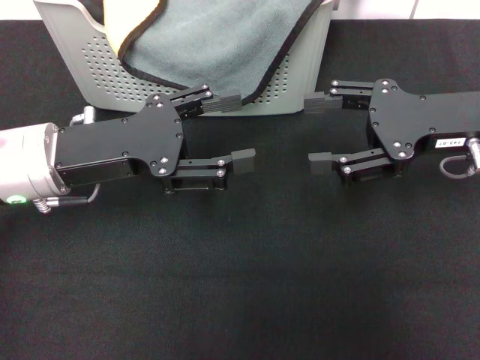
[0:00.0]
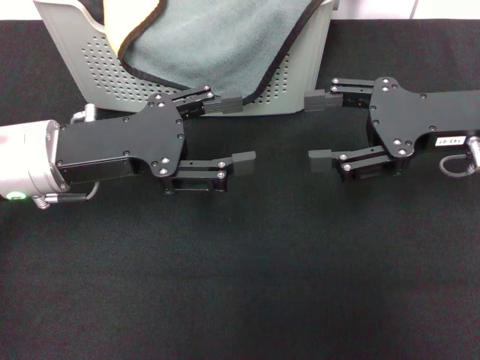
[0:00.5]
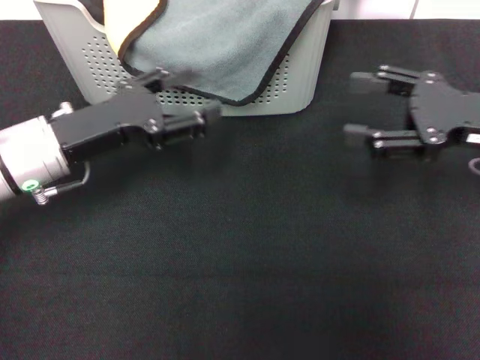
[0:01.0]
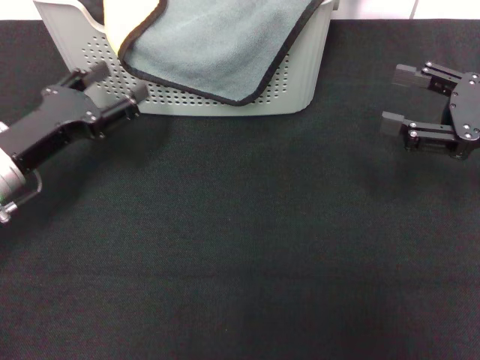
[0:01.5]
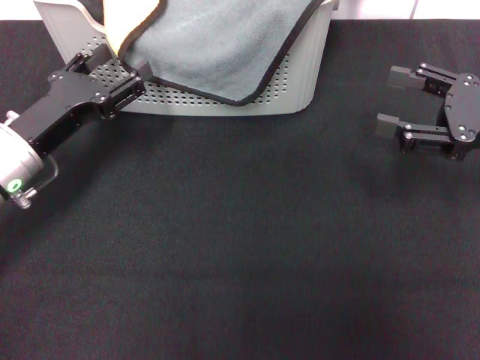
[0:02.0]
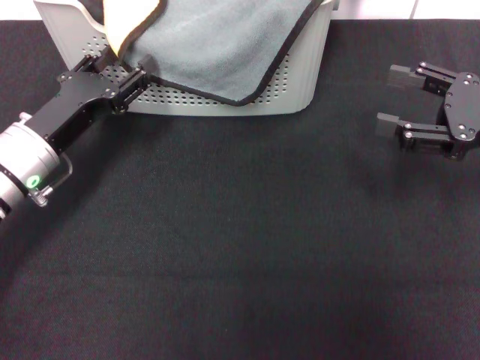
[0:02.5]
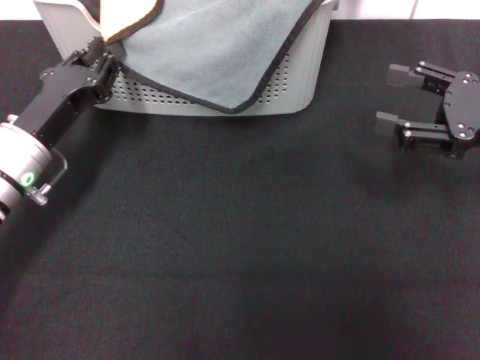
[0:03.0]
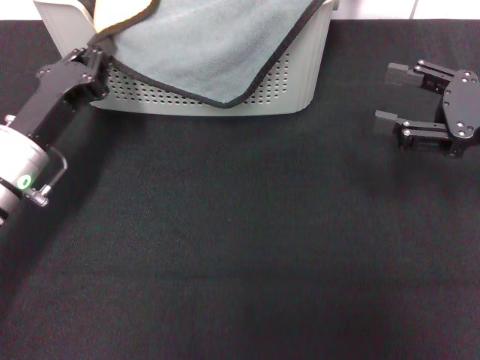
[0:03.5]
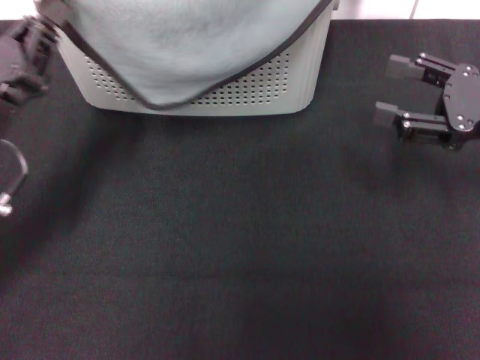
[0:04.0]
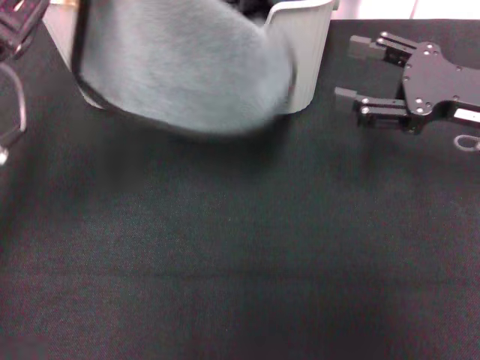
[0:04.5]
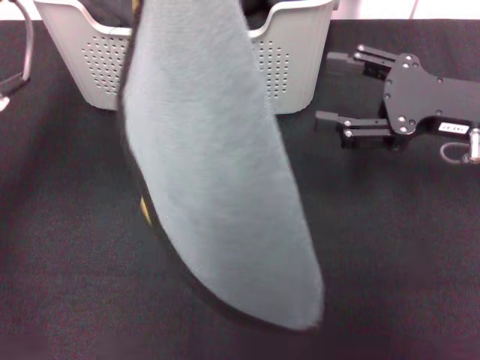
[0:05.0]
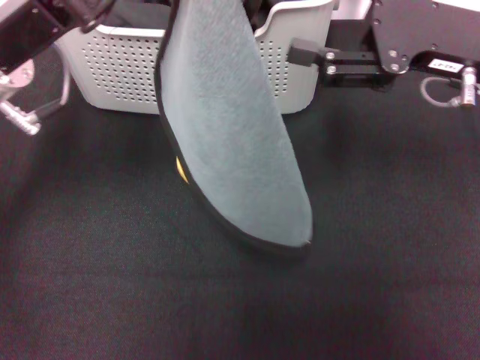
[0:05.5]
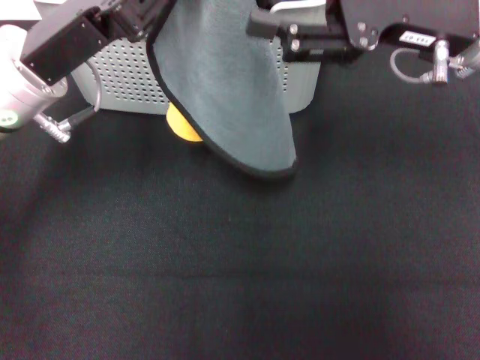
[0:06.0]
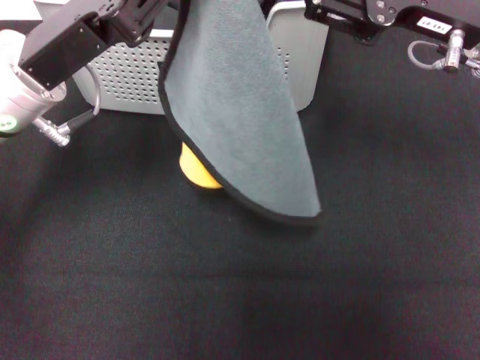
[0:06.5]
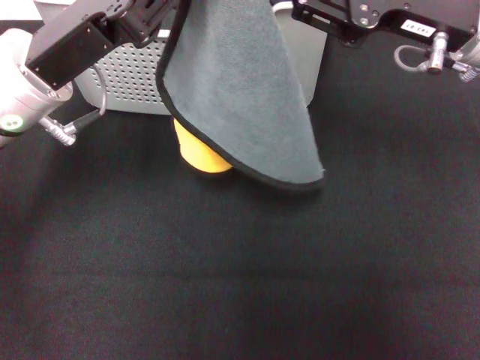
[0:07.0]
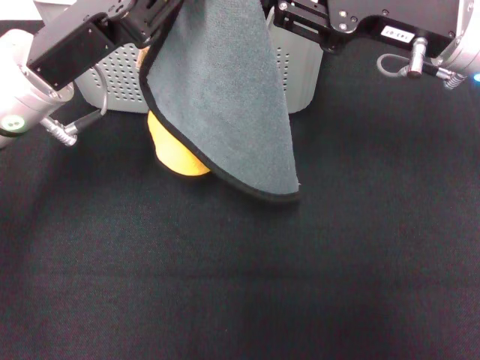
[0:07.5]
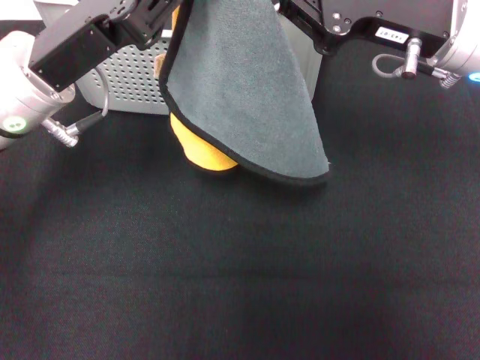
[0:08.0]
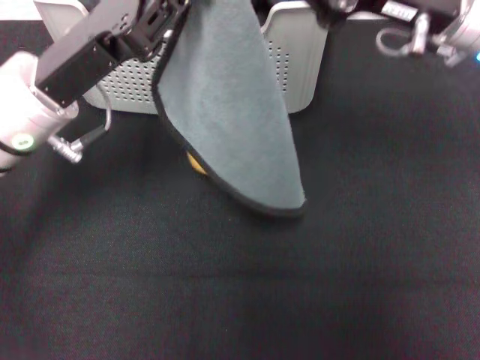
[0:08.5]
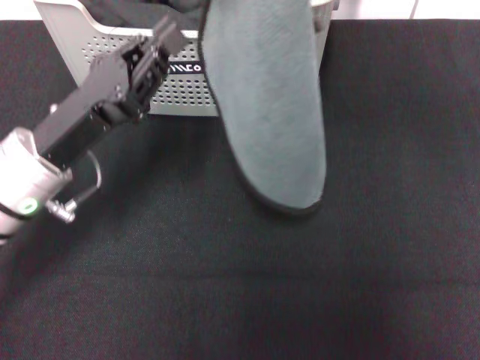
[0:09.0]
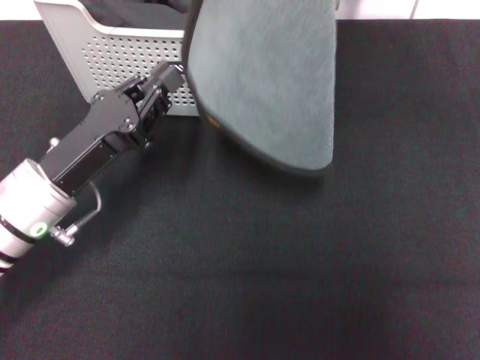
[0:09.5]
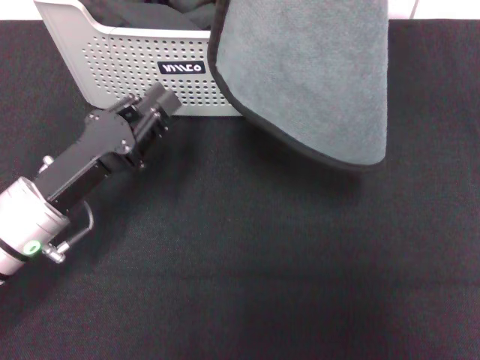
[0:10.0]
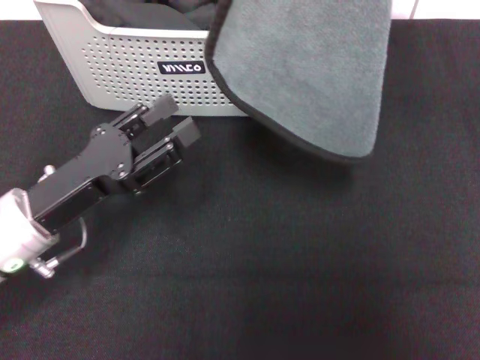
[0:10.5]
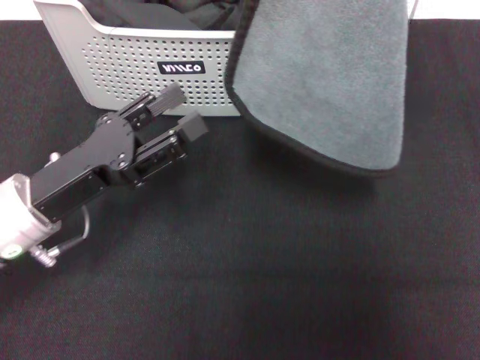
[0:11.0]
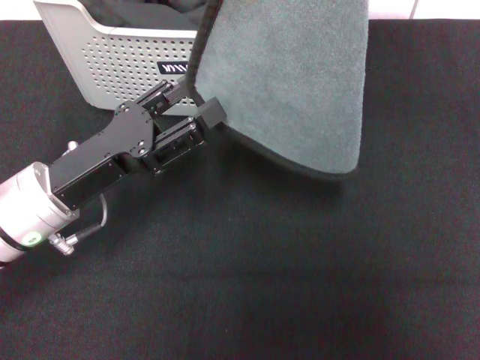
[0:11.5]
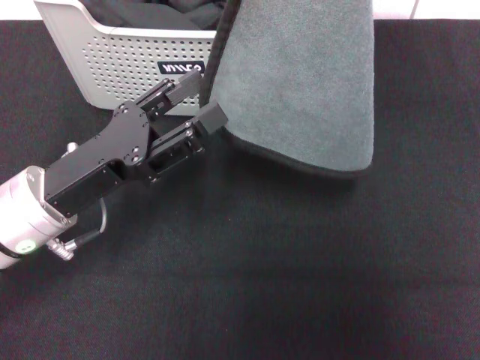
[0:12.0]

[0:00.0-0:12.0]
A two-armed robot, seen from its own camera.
Task of the whole recording: pick up the towel from the storage box and lay it flat on the black tablecloth.
Step, 0:00.0 to 0:02.5: Pick up a towel with the left gripper.
Step, 0:03.0 to 0:08.0: Spread the towel flat with the left gripper.
0:00.0 to 0:02.0: The left gripper travels downward by about 5 cm. Meanwhile the right gripper moves to the right, roughly 5 cm.
0:02.0 to 0:04.0: The left gripper ends up approximately 5 cm from where it was, and closes up.
0:04.0 to 0:06.0: The left gripper travels upward, to the right and forward by some 10 cm; the right gripper goes about 15 cm to the left and upward.
0:06.0 to 0:08.0: The right gripper closes up.
0:08.0 to 0:10.0: The right gripper heads upward, covering approximately 20 cm. The left gripper moves downward and backward, some 10 cm.
0:10.0 to 0:12.0: The left gripper opens up.

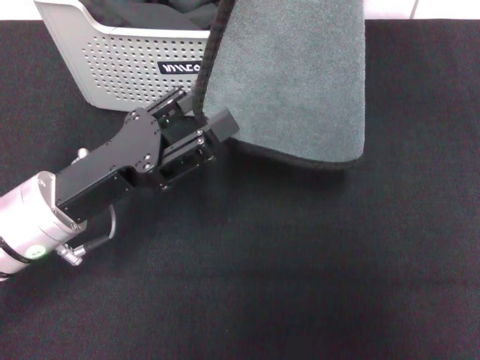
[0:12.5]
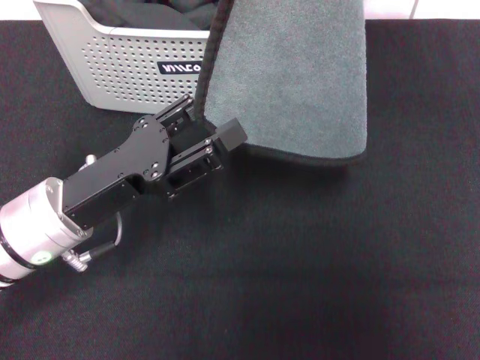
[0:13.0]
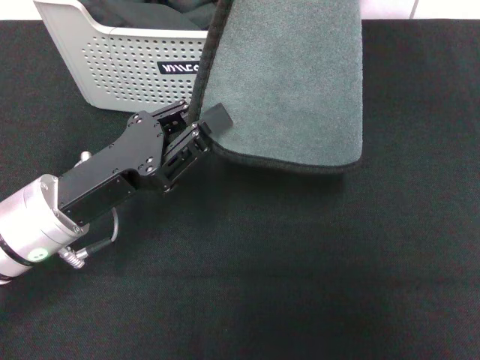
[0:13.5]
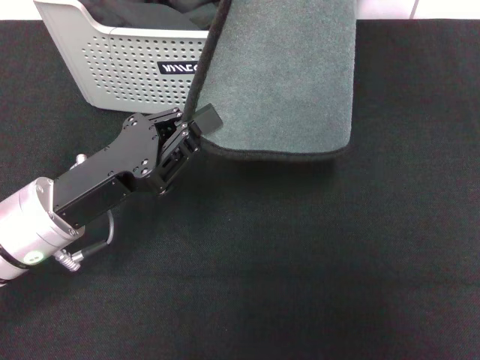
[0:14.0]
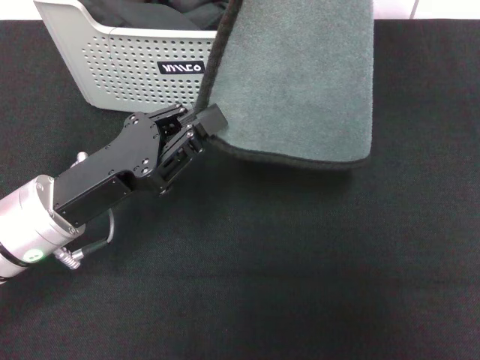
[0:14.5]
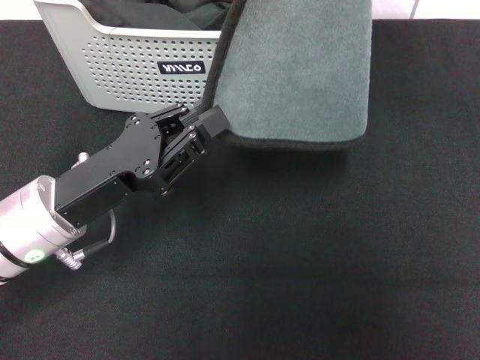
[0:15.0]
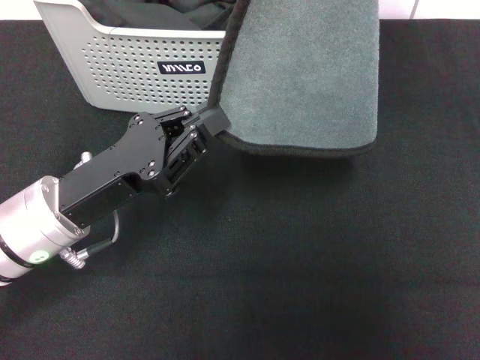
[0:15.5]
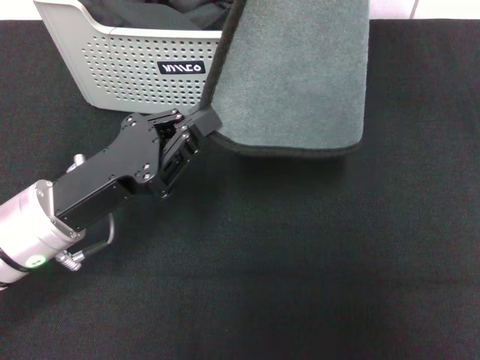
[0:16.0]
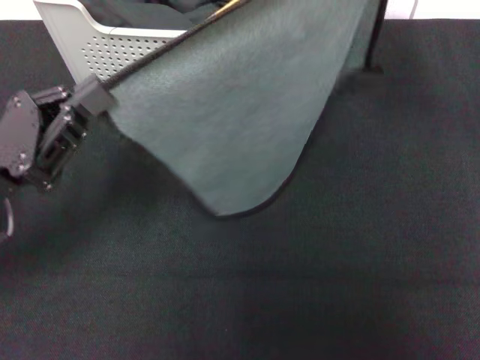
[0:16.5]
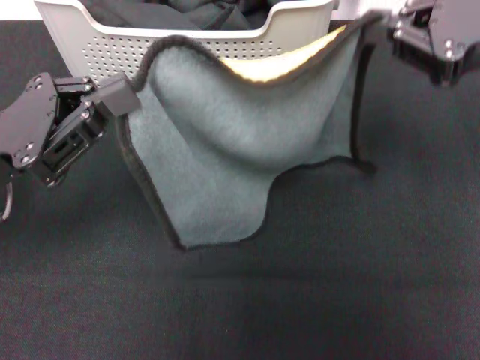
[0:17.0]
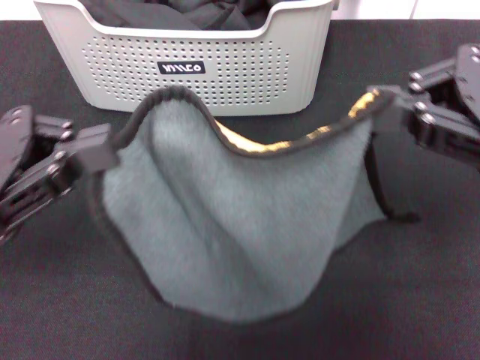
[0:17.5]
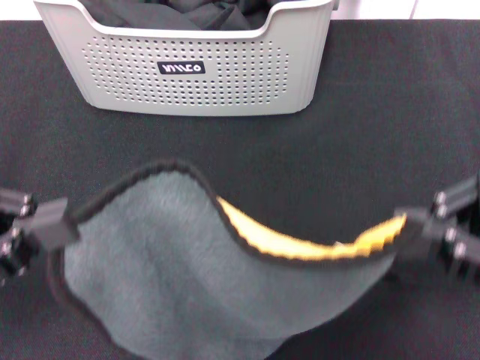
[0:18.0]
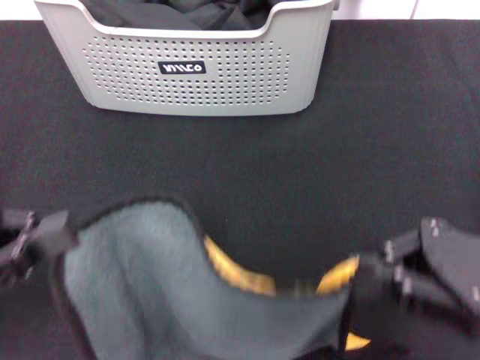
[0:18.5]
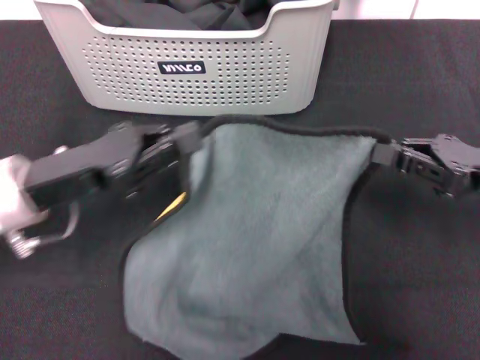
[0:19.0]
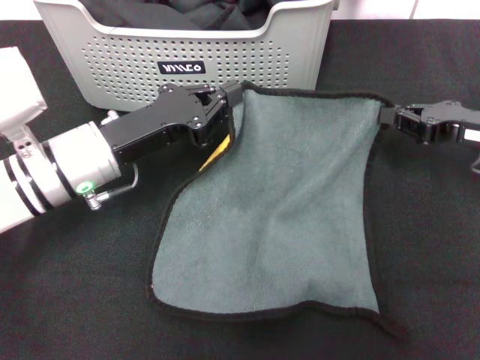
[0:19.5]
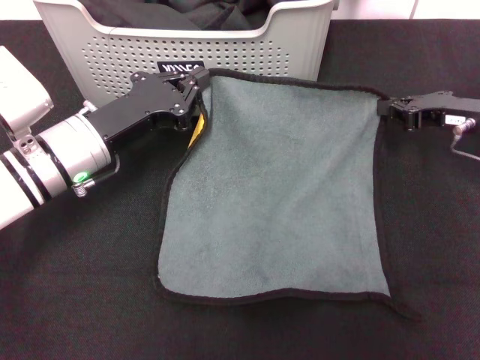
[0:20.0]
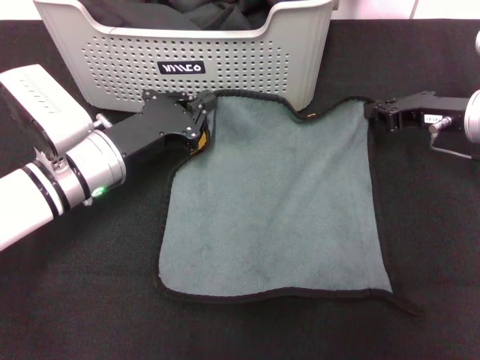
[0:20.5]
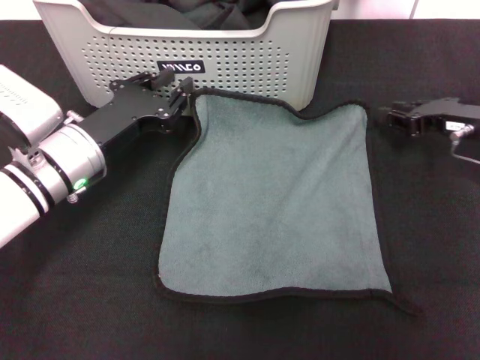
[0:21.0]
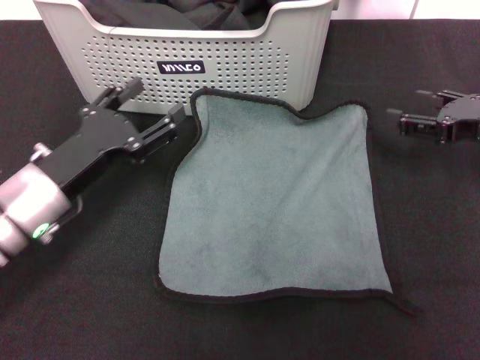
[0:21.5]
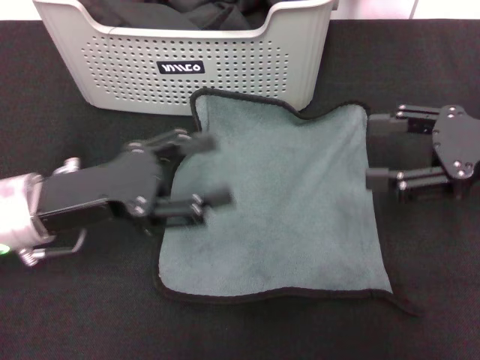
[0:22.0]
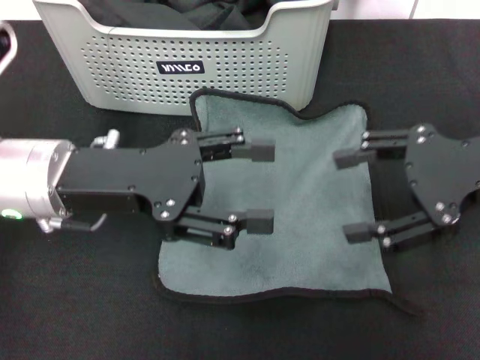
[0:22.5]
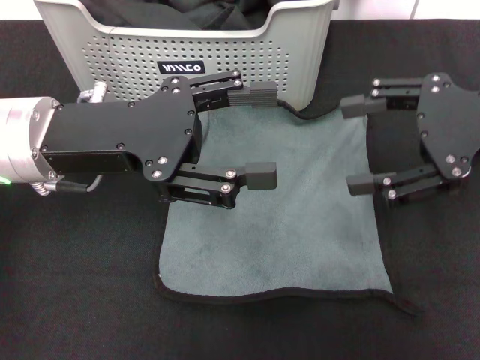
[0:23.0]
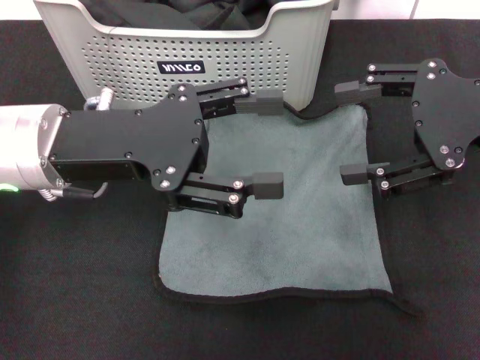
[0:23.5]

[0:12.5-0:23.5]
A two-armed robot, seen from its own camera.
Task of the whole recording: pick up the towel from the storage box and lay it flat on the black tablecloth.
Step, 0:12.5 to 0:20.5: Spread the towel flat with the right gripper.
0:12.5 to 0:14.5: The left gripper closes.
0:14.5 to 0:16.0: Both grippers stay put.
0:16.0 to 0:18.0: The right gripper goes approximately 20 cm downward and backward. Meanwhile the left gripper heads to the left, upward and backward, covering approximately 15 cm.
0:18.0 to 0:20.0: The left gripper is displaced forward, to the right and downward by approximately 20 cm. Meanwhile the right gripper moves forward and downward, some 20 cm.
0:20.0 to 0:21.5: The right gripper opens its fingers, while the left gripper heads backward, covering about 5 cm, and opens up.
0:21.5 to 0:23.5: The right gripper goes approximately 15 cm upward and to the left. The left gripper goes approximately 10 cm upward.
